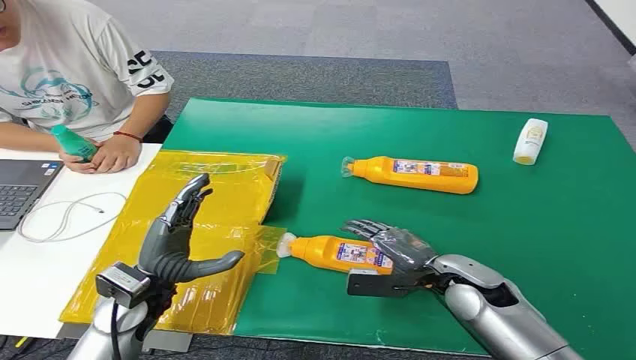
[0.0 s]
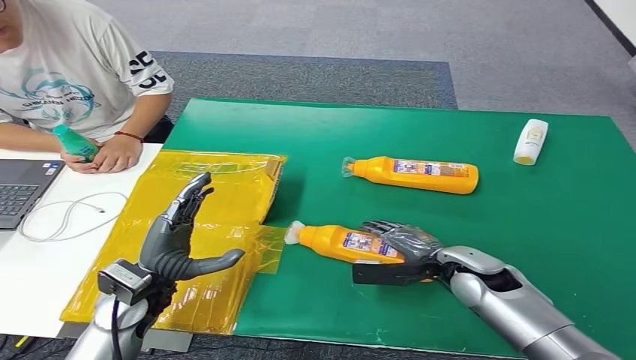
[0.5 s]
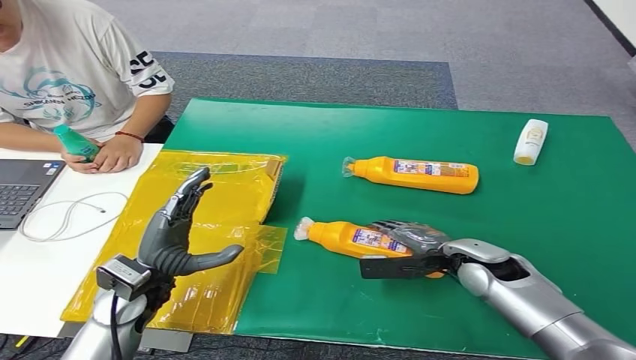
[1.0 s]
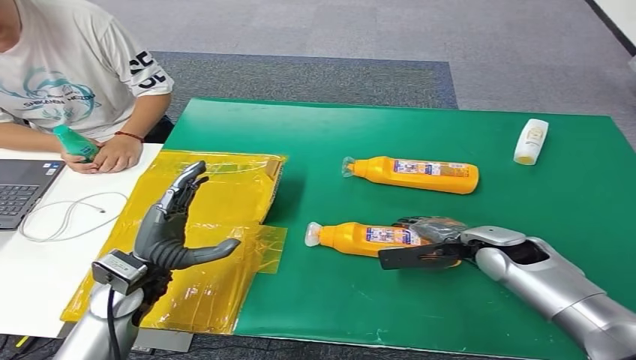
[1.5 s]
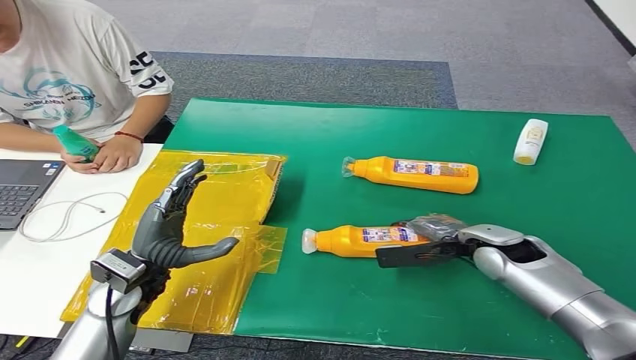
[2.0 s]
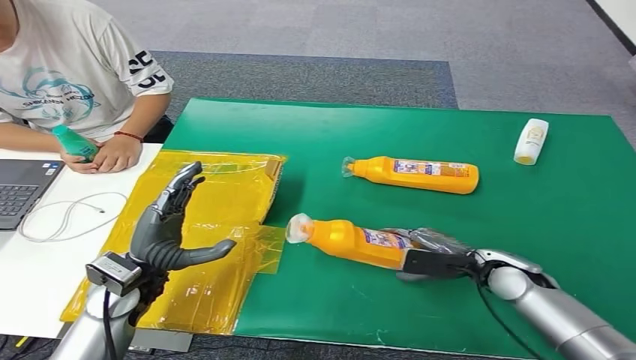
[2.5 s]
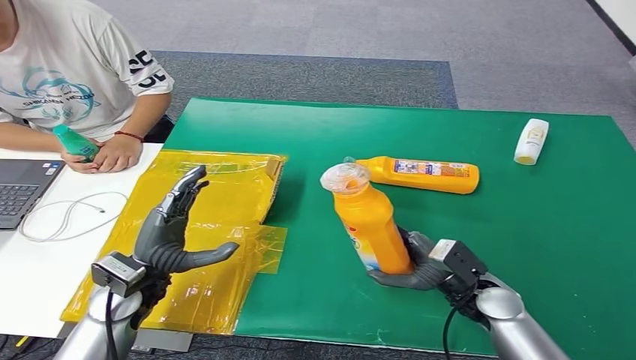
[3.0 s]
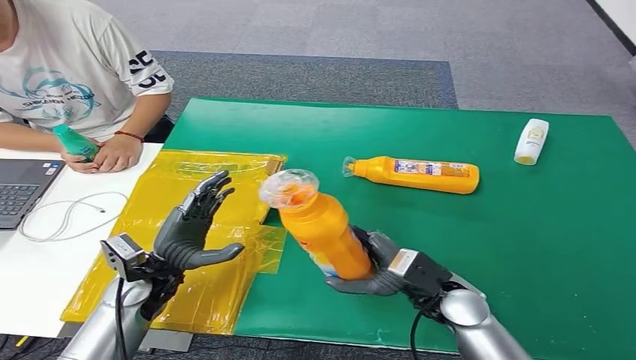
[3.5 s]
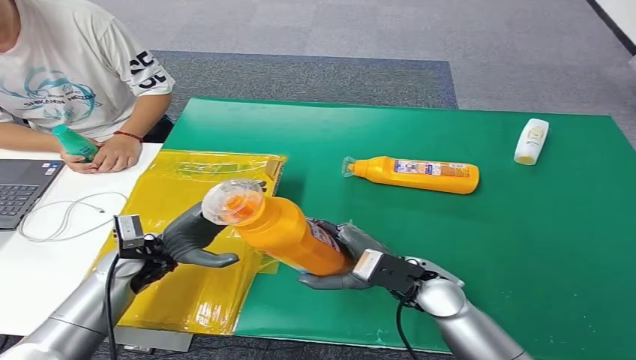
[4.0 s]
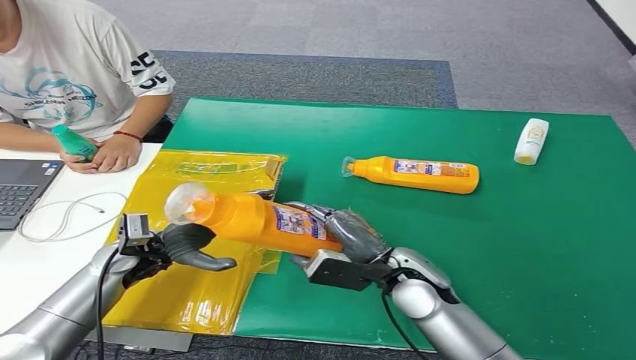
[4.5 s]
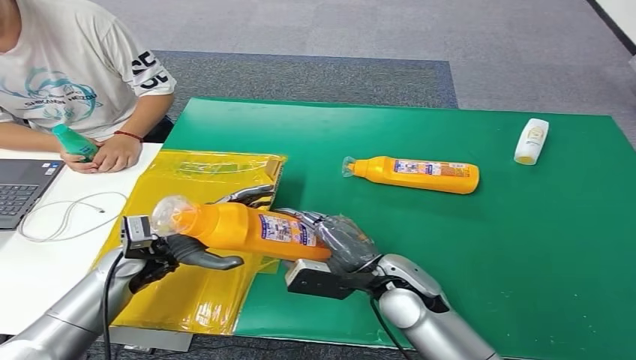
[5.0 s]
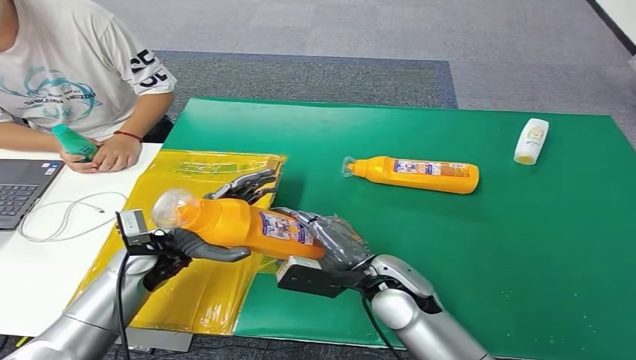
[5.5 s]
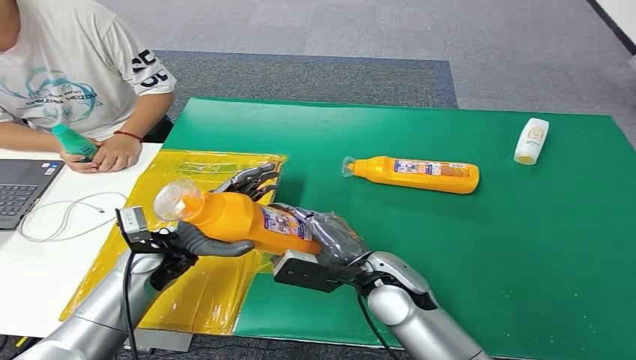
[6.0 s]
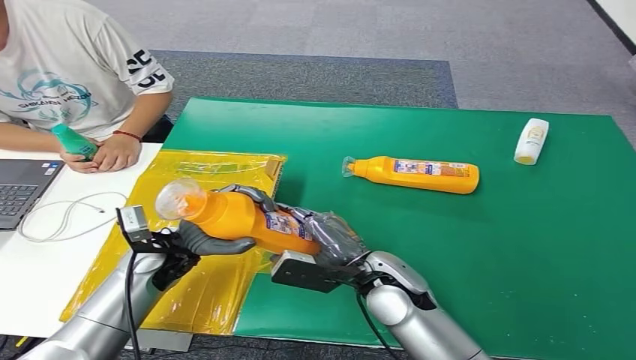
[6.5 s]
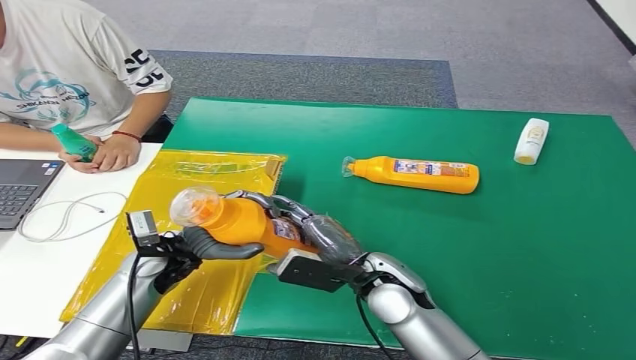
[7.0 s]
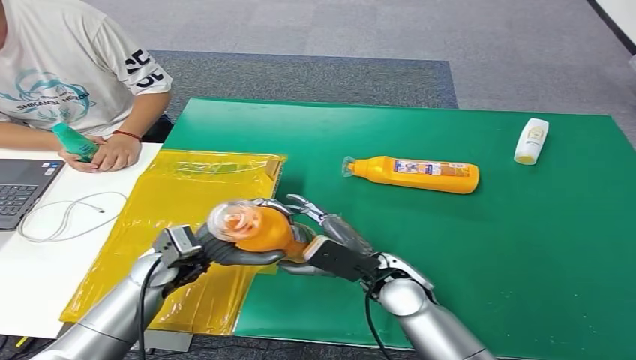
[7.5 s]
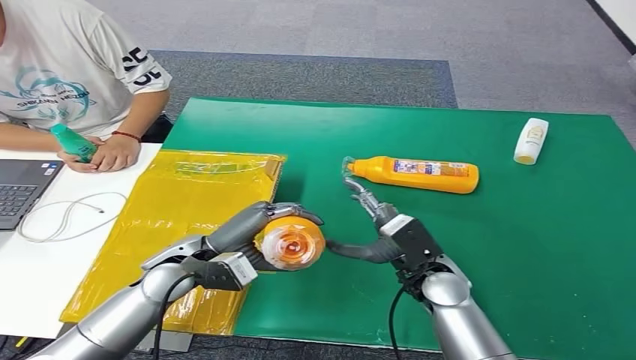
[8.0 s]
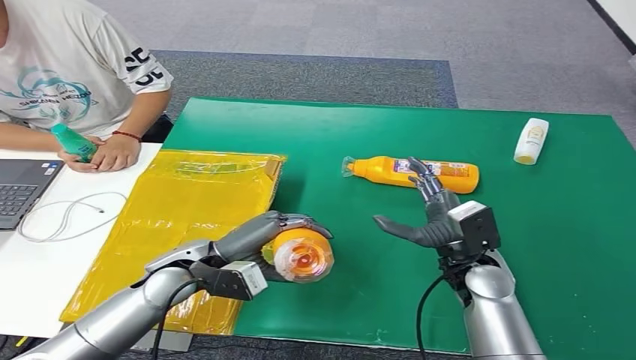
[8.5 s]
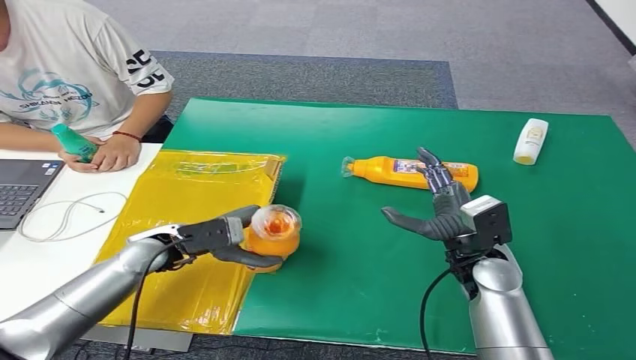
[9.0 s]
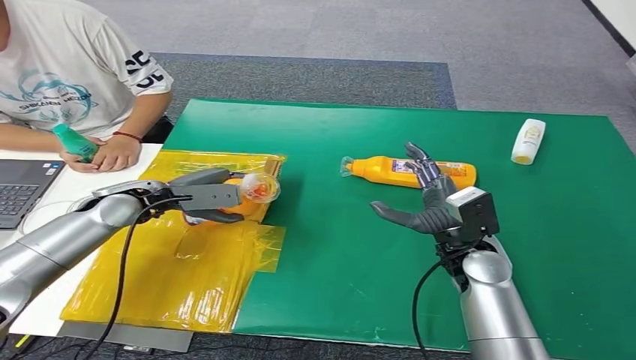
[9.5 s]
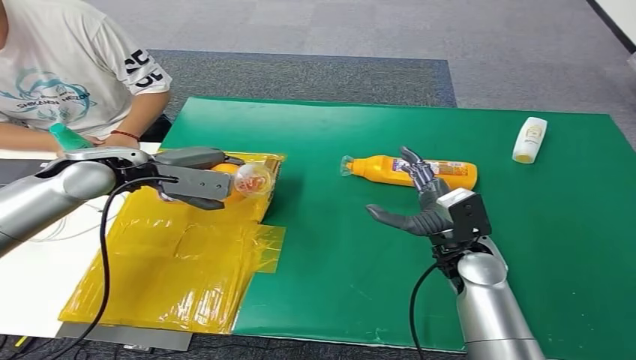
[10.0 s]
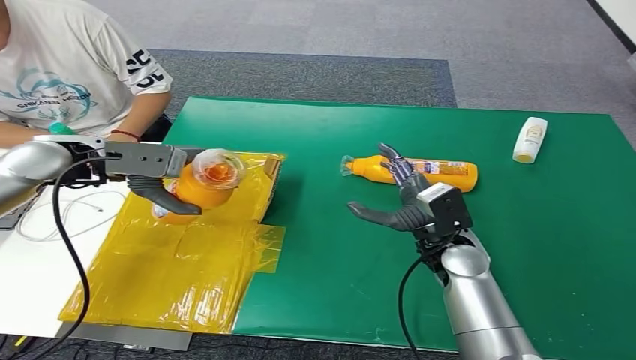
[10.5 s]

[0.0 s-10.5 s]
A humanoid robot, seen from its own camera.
Step, 0.0 to 3.5 s: Pick up the bottle from the table.
2.0 to 4.0 s: The left hand is displaced forward by roughly 5 cm. Meanwhile the right hand shifts roughly 15 cm to the left and backward.
4.0 to 6.5 s: The right hand goes approximately 5 cm to the left.
6.5 to 8.5 s: The left hand moves approximately 5 cm; the right hand heads to the right, covering approximately 10 cm.

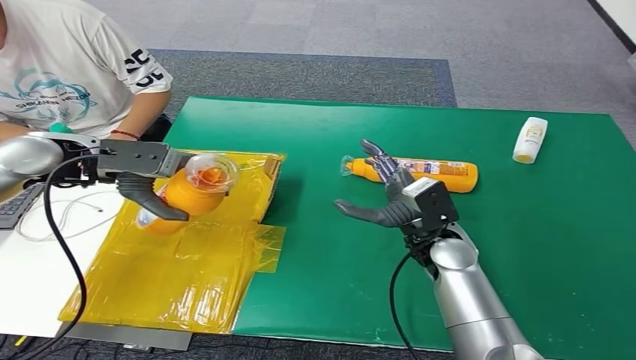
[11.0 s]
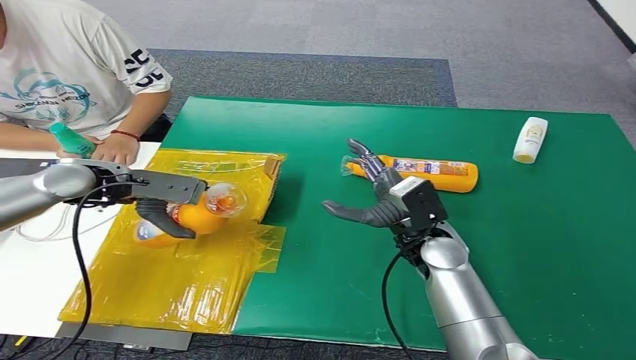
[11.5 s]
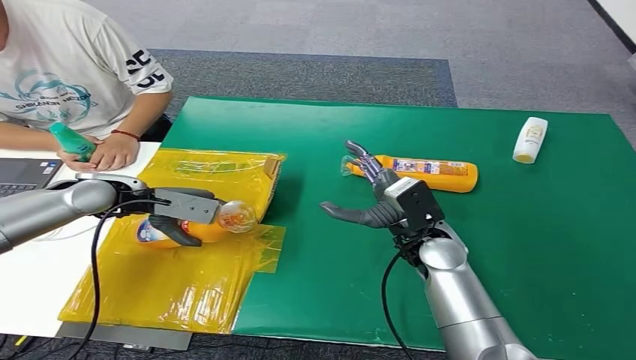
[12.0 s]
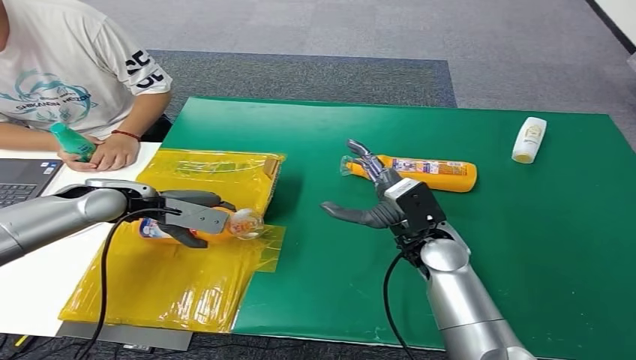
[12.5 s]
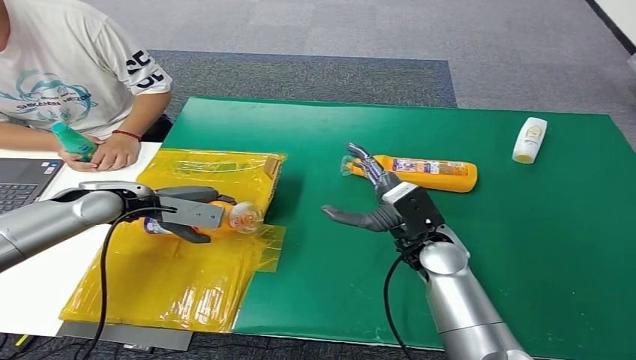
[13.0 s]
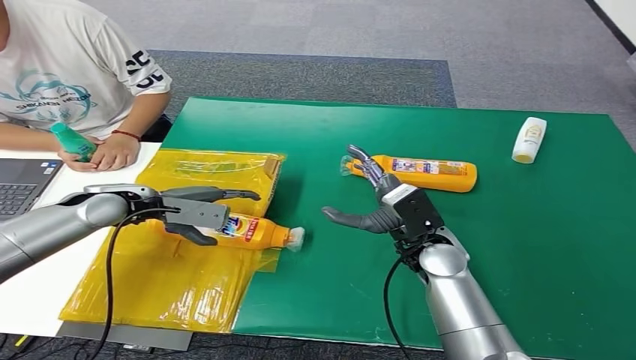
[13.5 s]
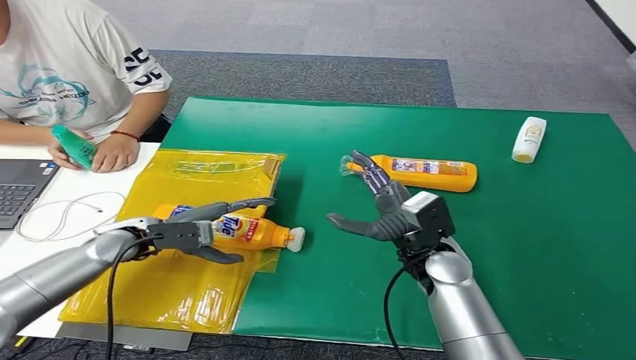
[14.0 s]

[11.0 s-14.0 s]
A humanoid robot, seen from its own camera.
Step, 11.0 to 14.0 s: Turn the bottle to the front side.
11.0 to 12.5 s: The left hand goes some 10 cm downward.
12.5 to 14.0 s: The left hand heads downward and backward, covering some 10 cm.
